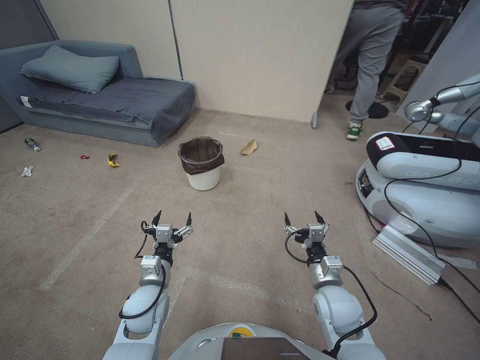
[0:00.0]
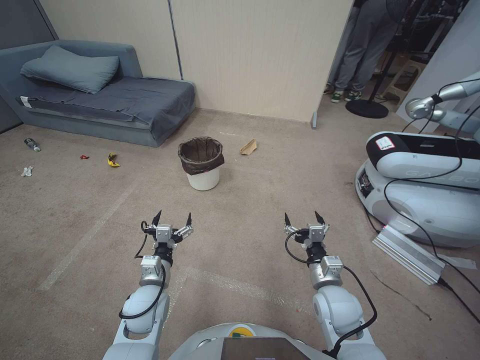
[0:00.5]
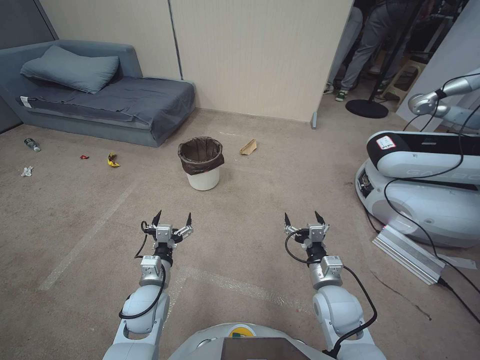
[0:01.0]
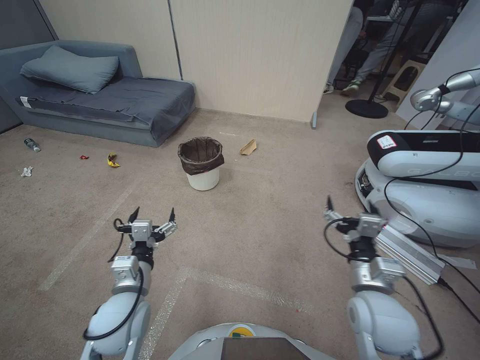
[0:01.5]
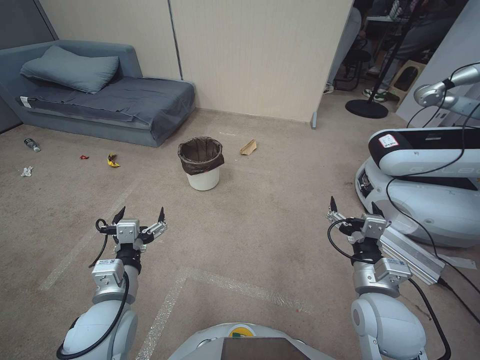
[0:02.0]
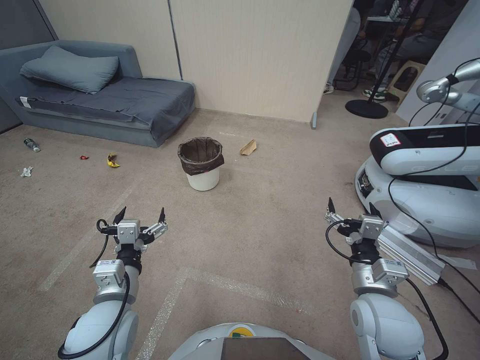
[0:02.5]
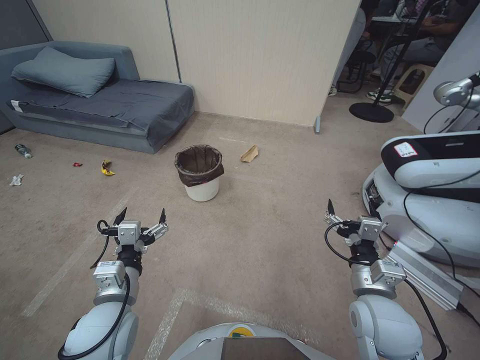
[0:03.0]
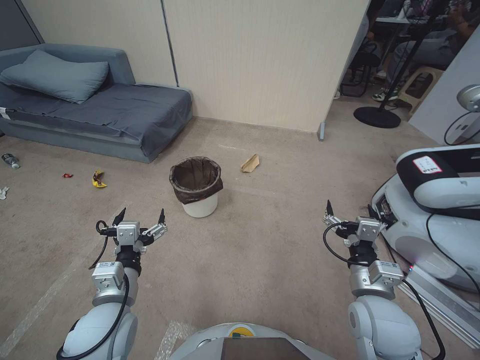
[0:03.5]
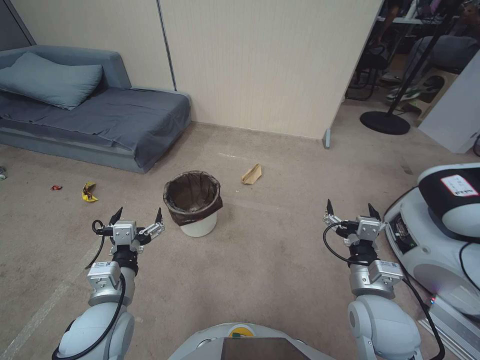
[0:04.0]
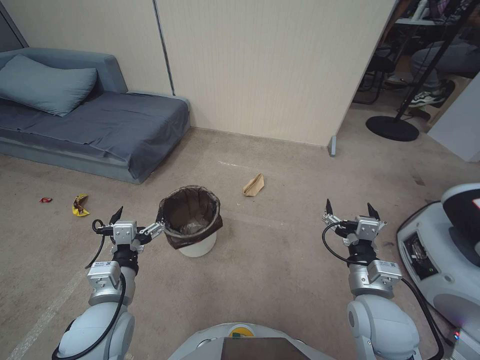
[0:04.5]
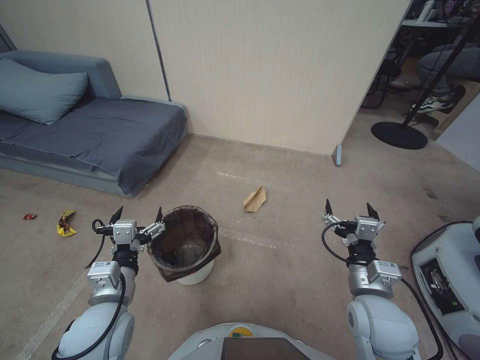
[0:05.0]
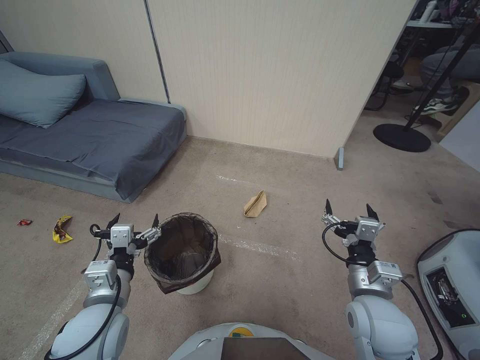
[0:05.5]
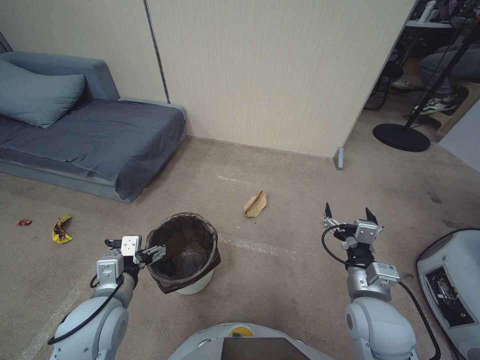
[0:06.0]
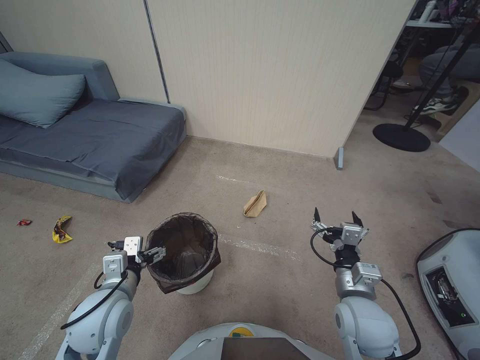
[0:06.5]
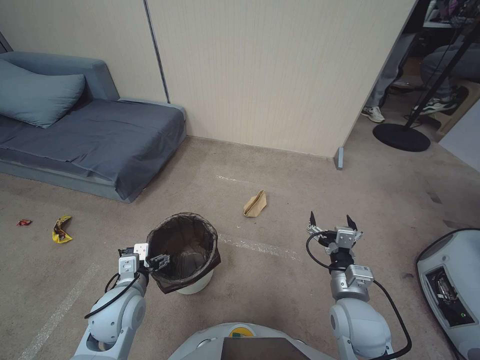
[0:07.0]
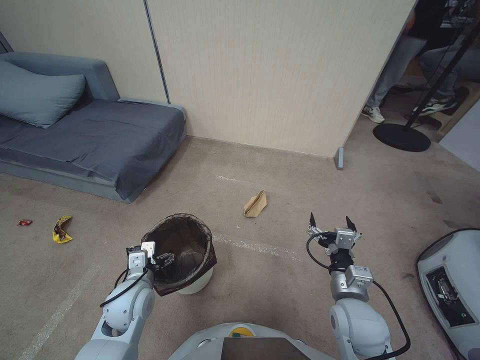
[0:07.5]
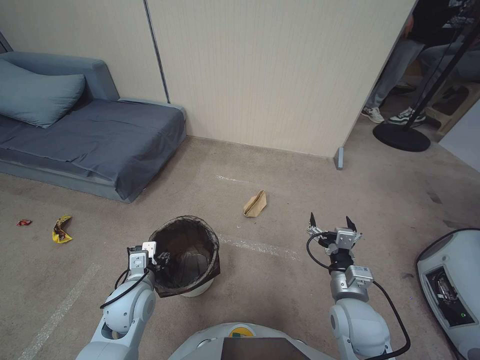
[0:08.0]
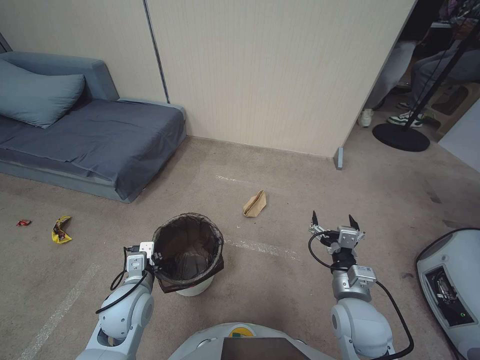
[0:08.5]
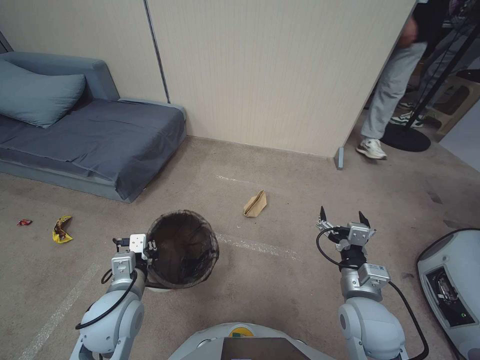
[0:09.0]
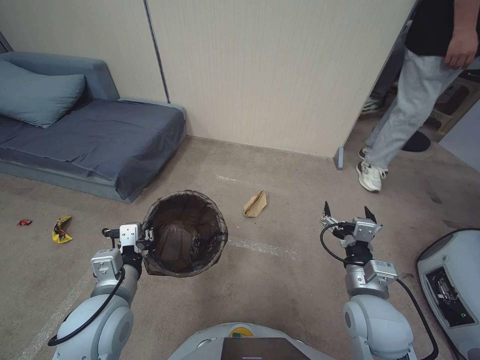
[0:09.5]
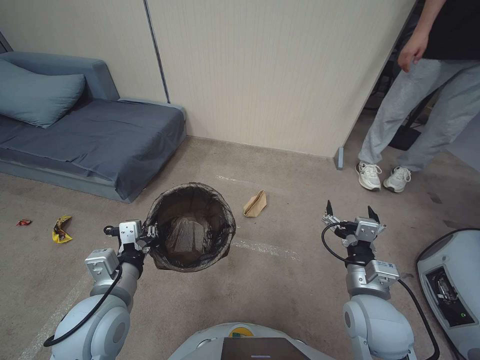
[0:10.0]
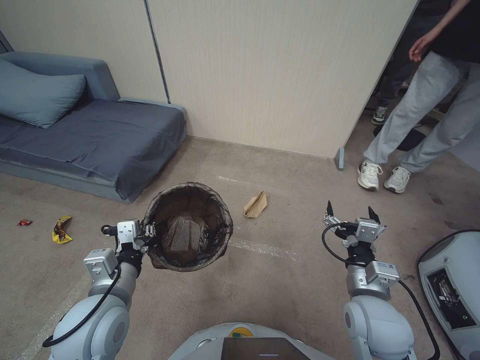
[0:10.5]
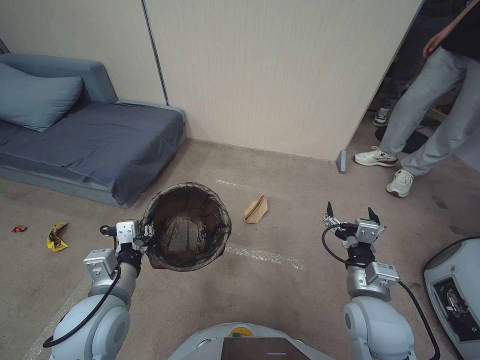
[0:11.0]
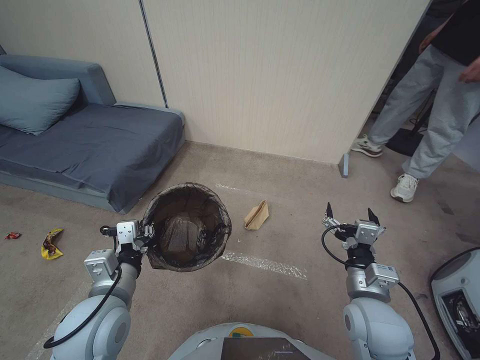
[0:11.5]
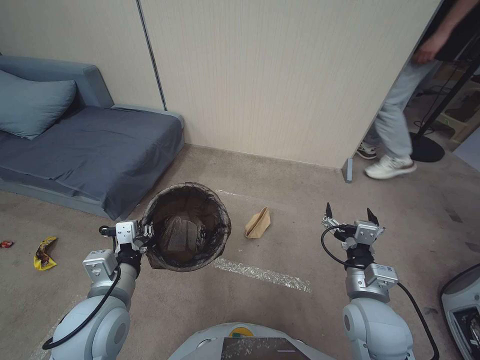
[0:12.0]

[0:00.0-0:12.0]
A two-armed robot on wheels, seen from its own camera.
Task of the whole recording: Pick up the trash bin, then pick up the garbage from the floor and place it into the trash bin.
0:06.0 to 0:08.0: The left gripper heads downward and forward, covering about 10 cm.
0:08.0 to 0:10.0: The left gripper moves upward and backward, roughly 15 cm, and closes. Meanwhile the right gripper shifts some 5 cm upward.

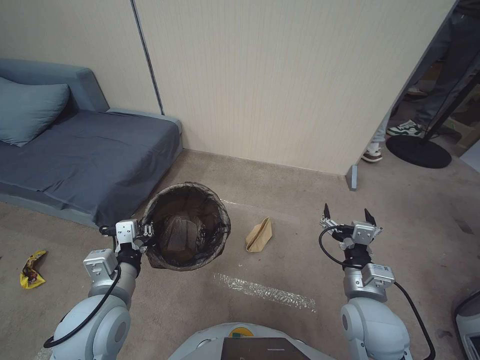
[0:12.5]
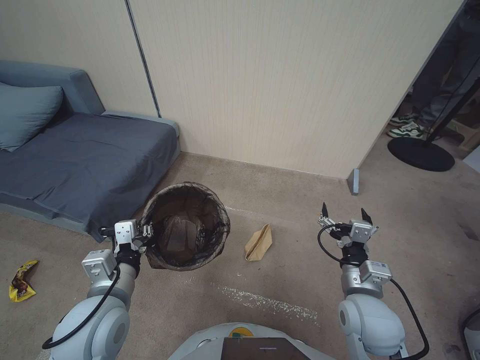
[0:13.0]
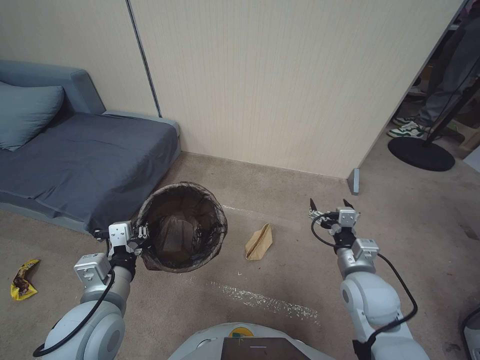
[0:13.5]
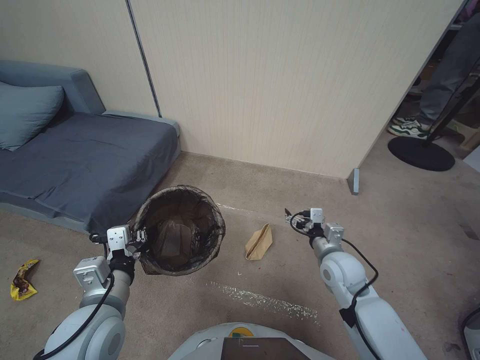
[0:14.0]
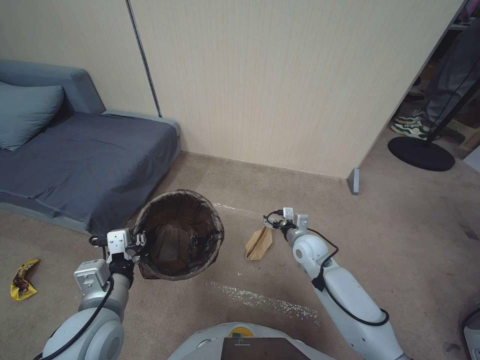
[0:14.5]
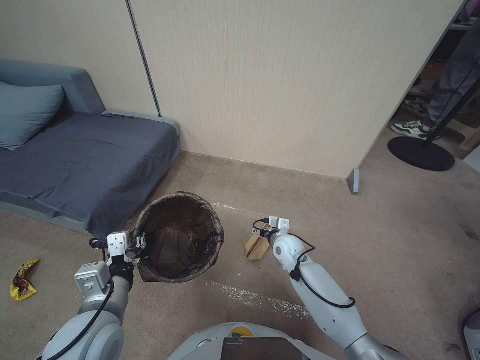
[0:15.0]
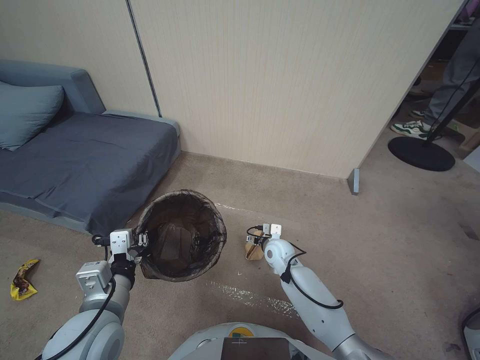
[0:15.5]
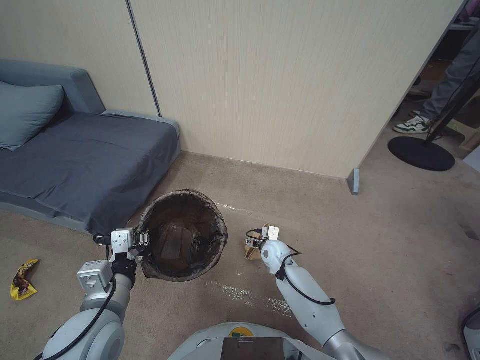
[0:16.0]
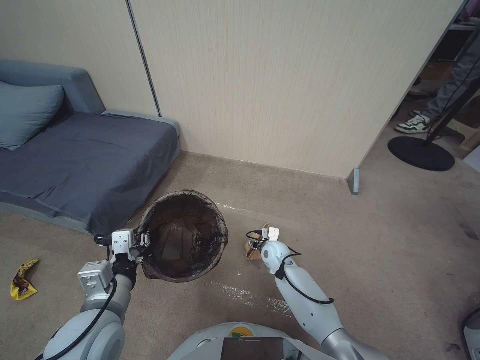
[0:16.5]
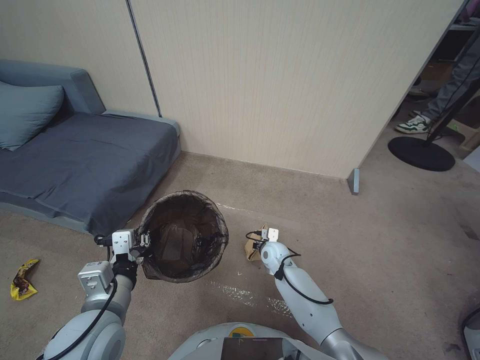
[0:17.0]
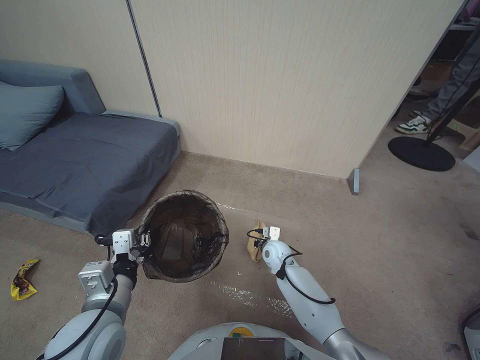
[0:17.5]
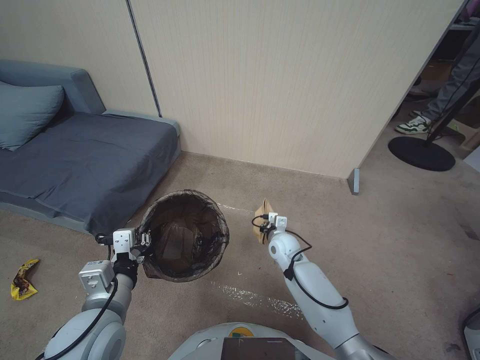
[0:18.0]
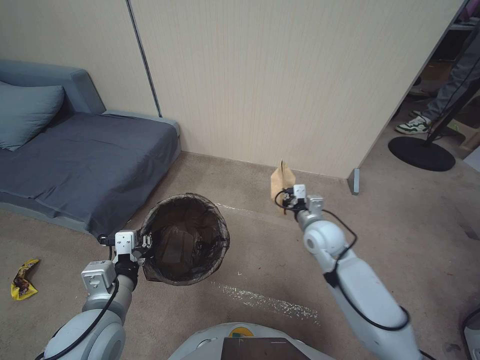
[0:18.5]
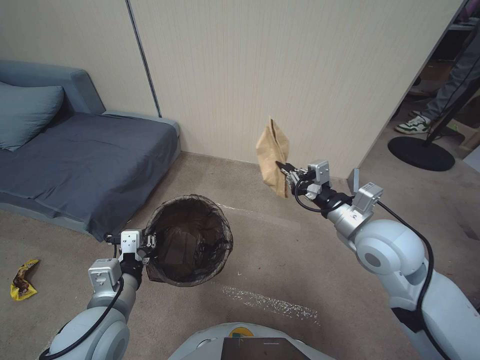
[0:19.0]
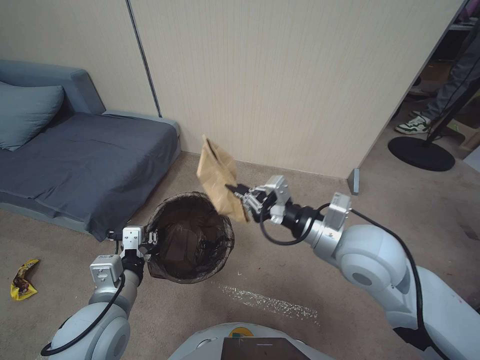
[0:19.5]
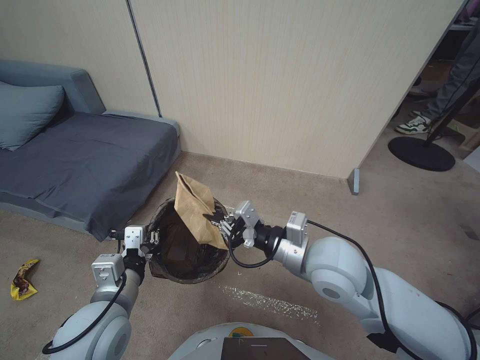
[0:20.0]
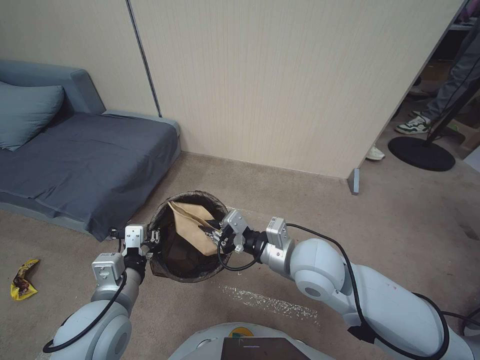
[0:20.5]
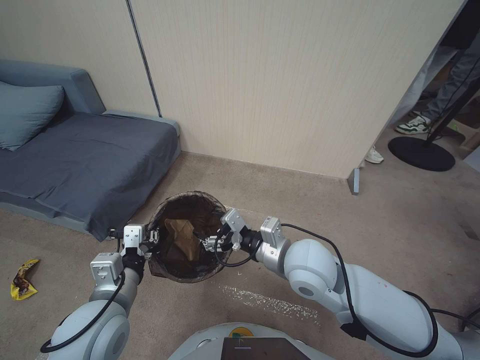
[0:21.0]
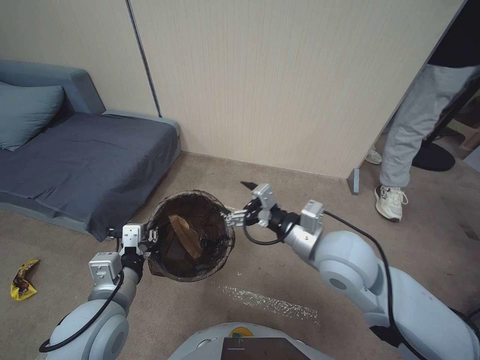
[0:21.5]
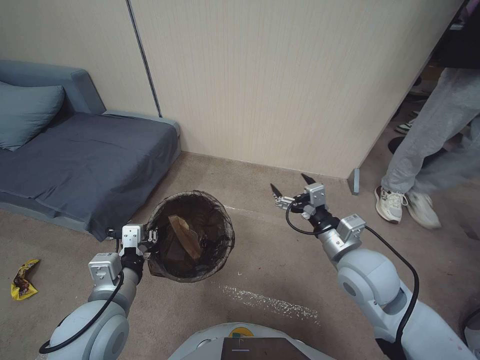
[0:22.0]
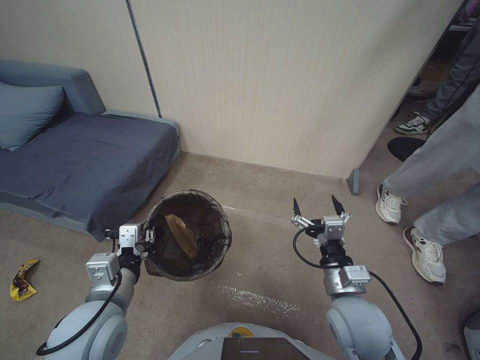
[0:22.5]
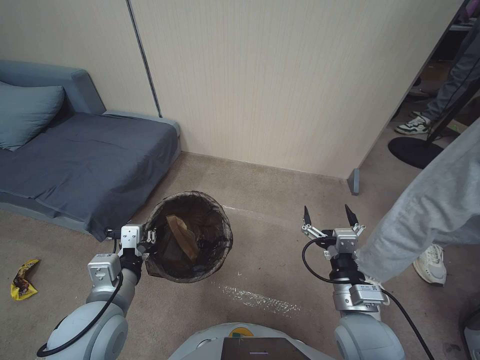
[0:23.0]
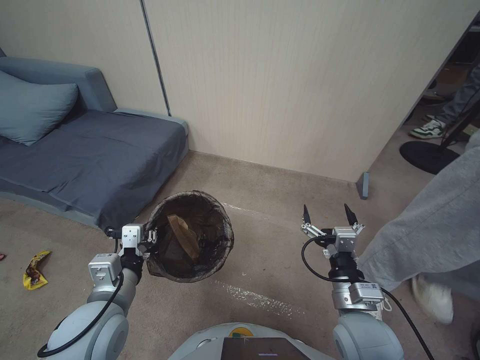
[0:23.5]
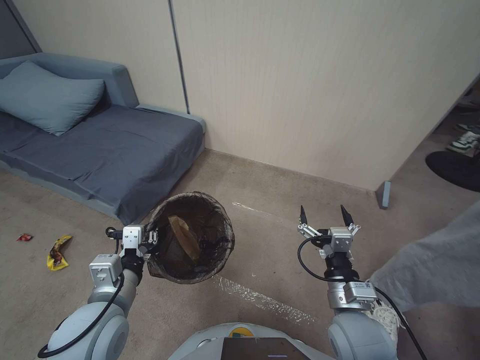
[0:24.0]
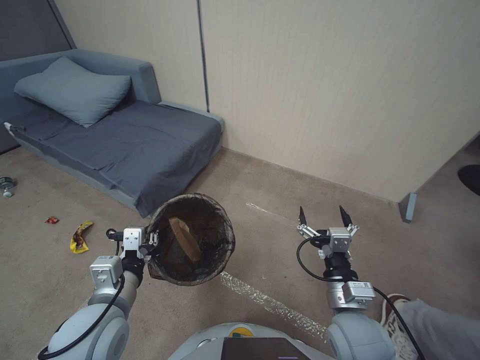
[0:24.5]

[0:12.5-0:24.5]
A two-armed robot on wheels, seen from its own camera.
Task of the whole recording: Pick up the trash bin, then pick up the garbage from the floor and place it into the trash bin.
0:12.5 to 0:14.5: The right gripper heads forward and downward, covering approximately 20 cm.
0:14.5 to 0:16.5: The right gripper heads downward and to the left, covering roughly 15 cm.
0:16.5 to 0:18.5: The right gripper shifts approximately 20 cm upward and to the right, and closes up.
0:18.5 to 0:20.5: The right gripper travels backward, upward and to the left by about 20 cm.
0:20.5 to 0:22.5: The right gripper is displaced to the right, downward and backward by approximately 15 cm, and opens.

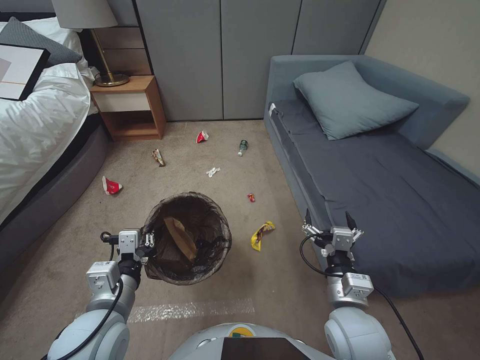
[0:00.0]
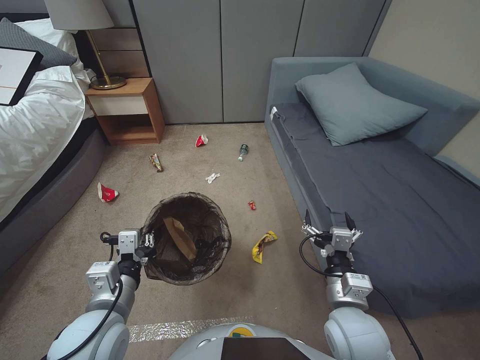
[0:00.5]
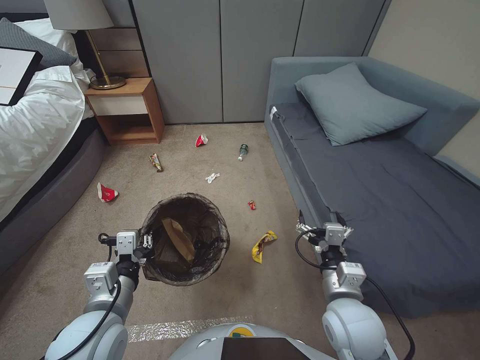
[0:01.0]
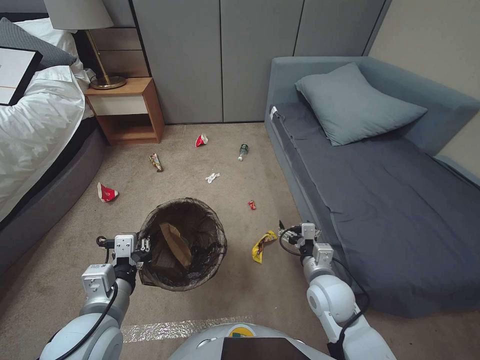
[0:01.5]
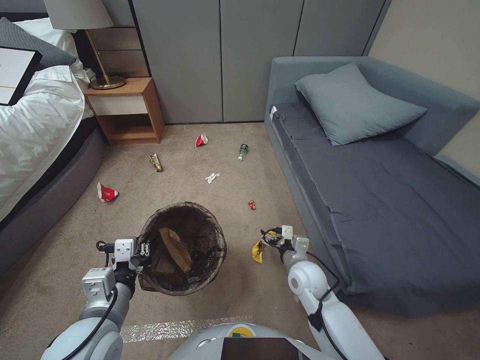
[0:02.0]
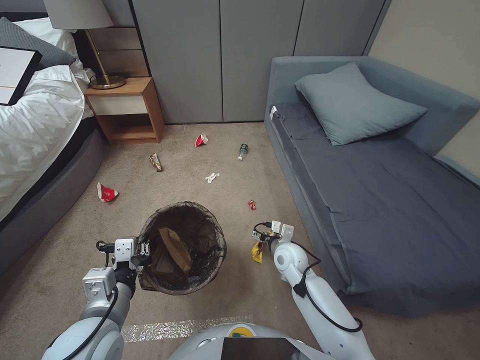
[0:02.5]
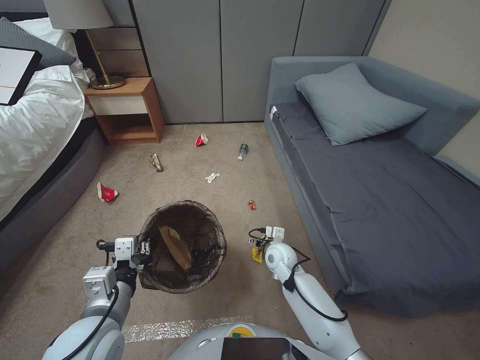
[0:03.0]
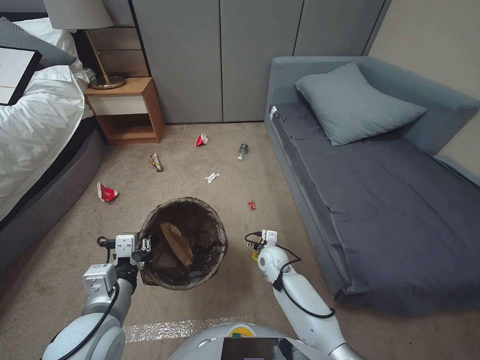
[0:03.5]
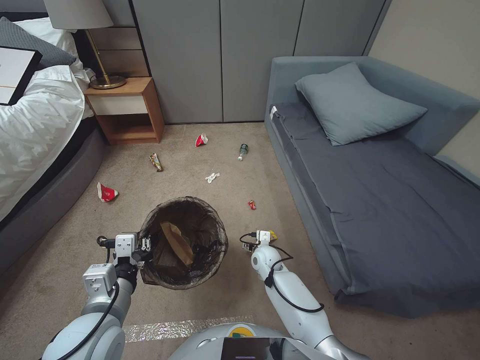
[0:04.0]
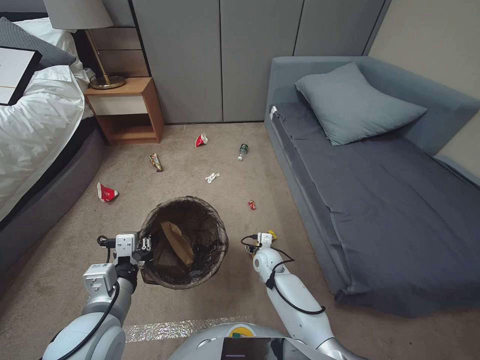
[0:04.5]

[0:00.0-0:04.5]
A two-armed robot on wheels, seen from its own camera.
Task of the whole recording: Pick up the trash bin, then pick up the garbage from the floor and place it into the trash bin.
0:00.0 to 0:02.0: The right gripper moves forward and downward, about 15 cm.
0:02.0 to 0:04.5: The right gripper heads downward, forward and to the left, covering some 15 cm.
